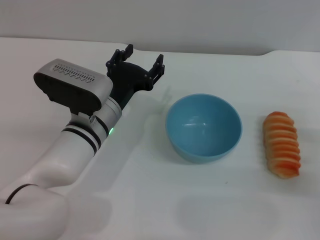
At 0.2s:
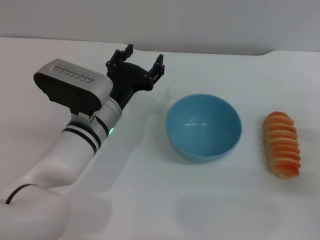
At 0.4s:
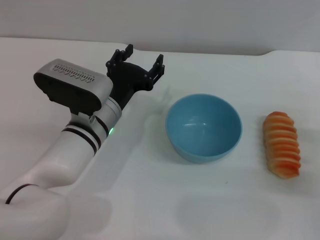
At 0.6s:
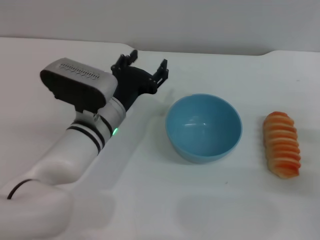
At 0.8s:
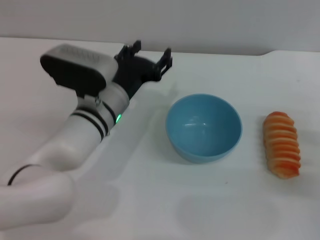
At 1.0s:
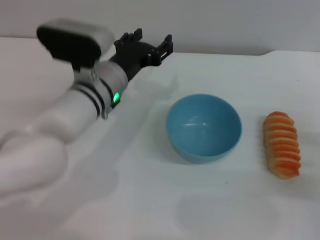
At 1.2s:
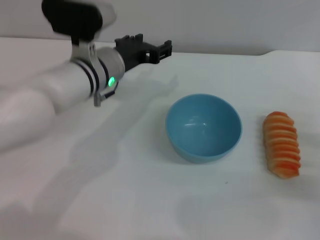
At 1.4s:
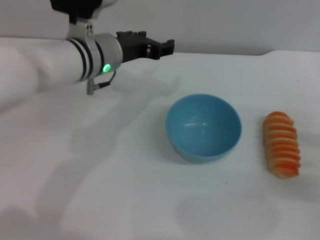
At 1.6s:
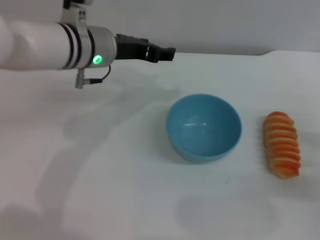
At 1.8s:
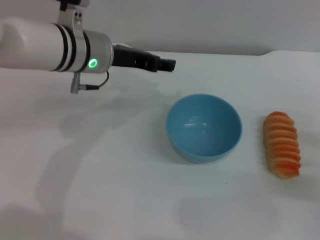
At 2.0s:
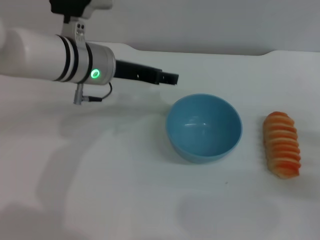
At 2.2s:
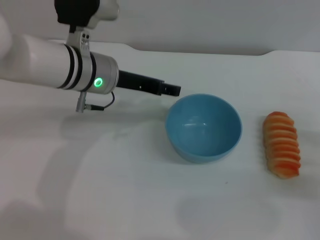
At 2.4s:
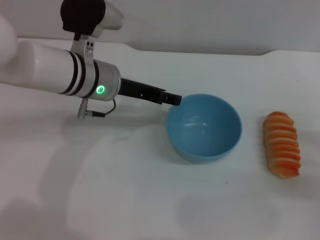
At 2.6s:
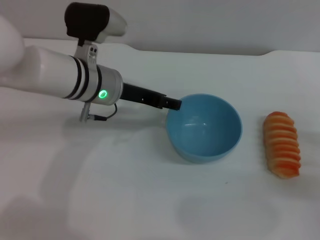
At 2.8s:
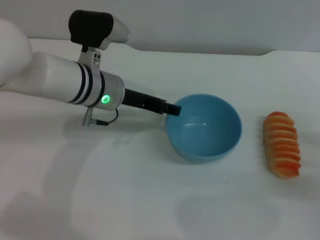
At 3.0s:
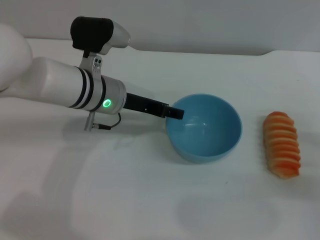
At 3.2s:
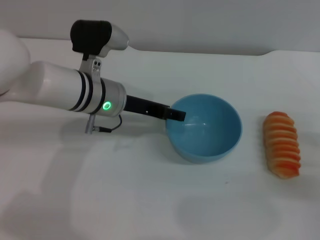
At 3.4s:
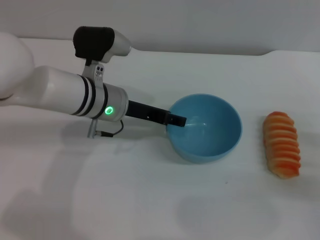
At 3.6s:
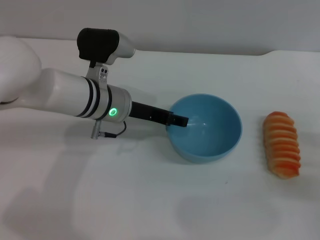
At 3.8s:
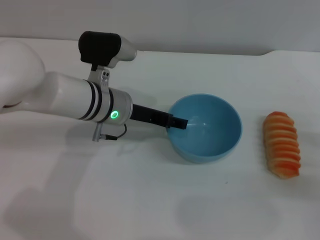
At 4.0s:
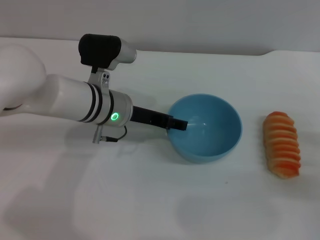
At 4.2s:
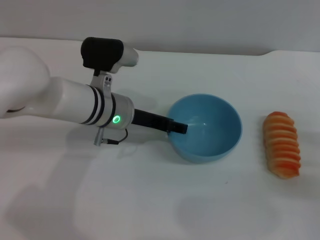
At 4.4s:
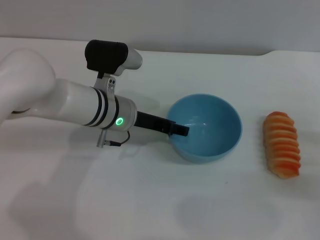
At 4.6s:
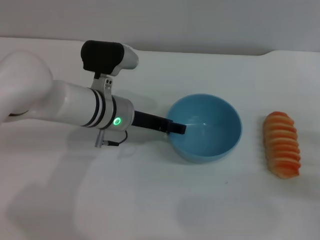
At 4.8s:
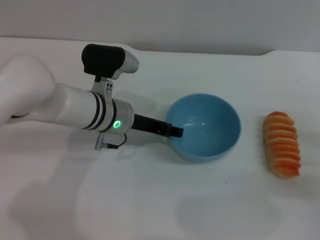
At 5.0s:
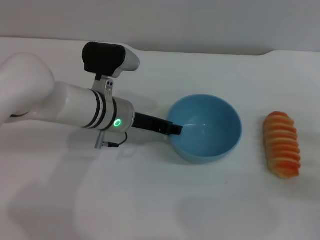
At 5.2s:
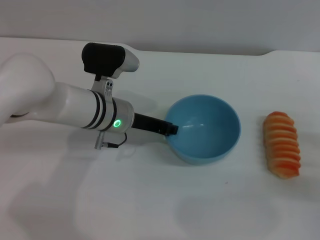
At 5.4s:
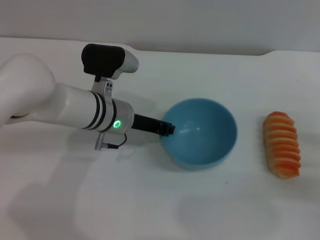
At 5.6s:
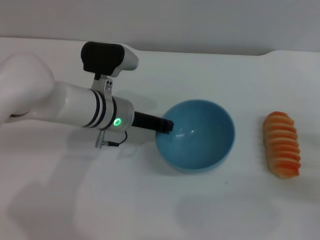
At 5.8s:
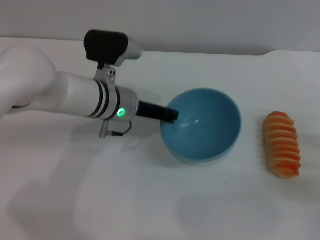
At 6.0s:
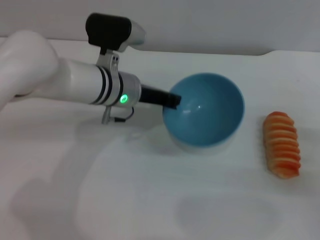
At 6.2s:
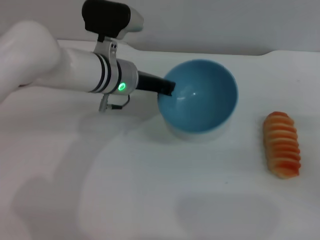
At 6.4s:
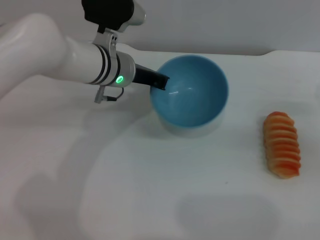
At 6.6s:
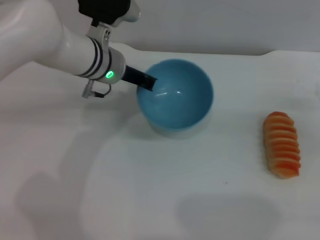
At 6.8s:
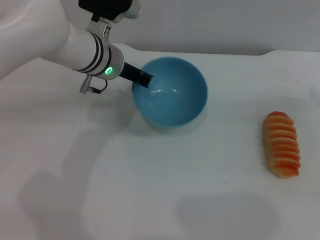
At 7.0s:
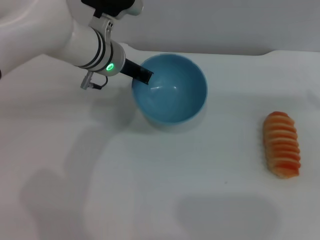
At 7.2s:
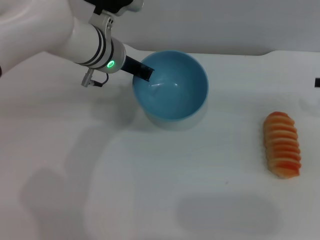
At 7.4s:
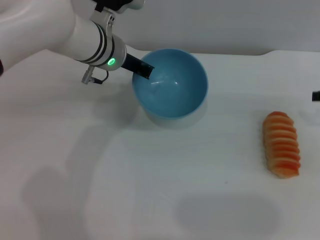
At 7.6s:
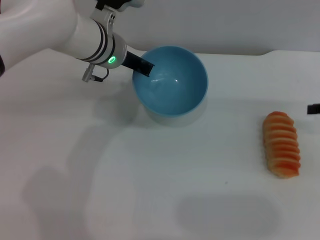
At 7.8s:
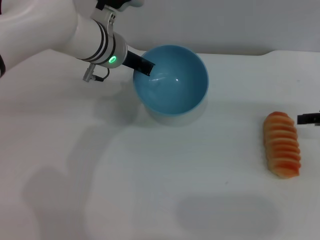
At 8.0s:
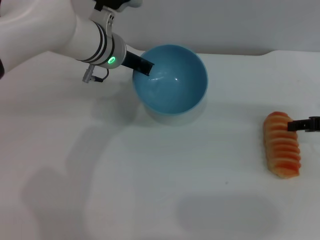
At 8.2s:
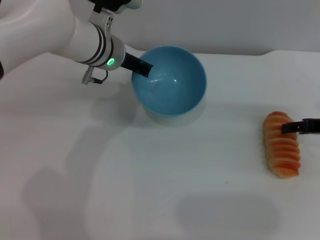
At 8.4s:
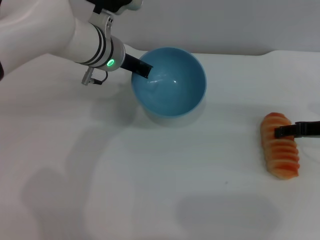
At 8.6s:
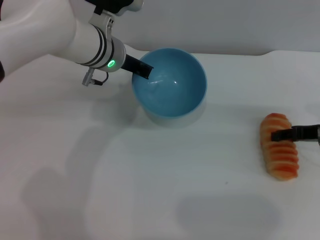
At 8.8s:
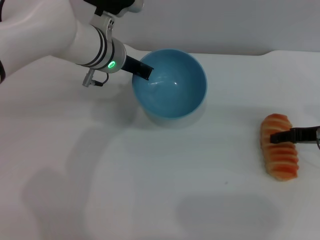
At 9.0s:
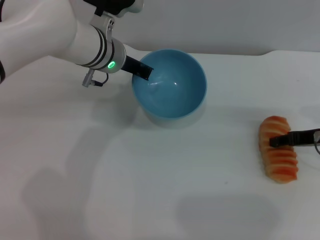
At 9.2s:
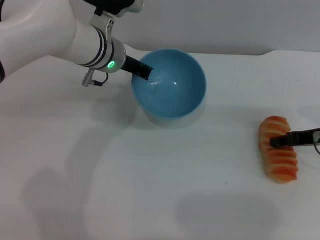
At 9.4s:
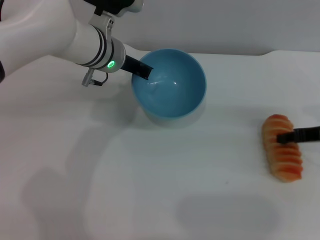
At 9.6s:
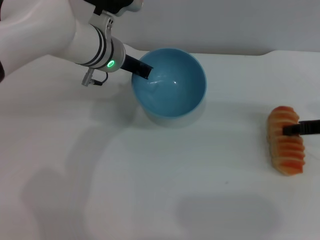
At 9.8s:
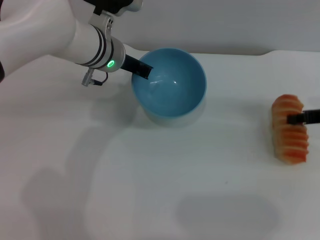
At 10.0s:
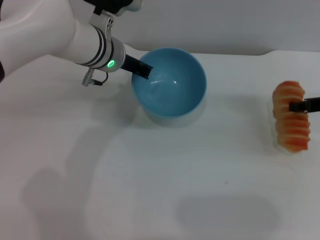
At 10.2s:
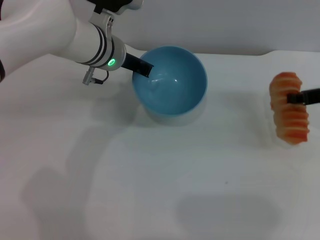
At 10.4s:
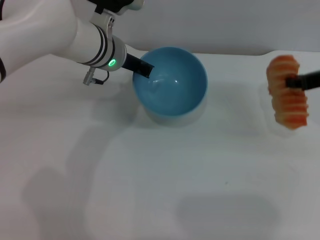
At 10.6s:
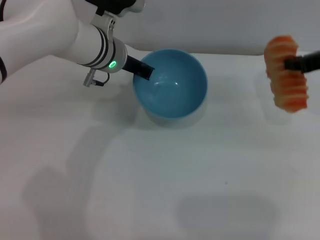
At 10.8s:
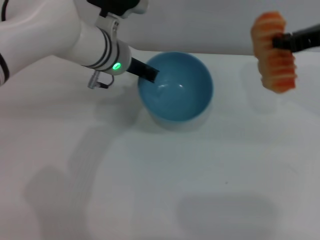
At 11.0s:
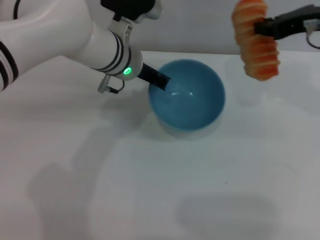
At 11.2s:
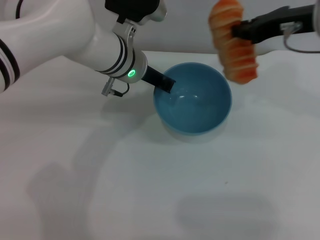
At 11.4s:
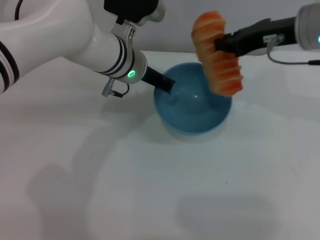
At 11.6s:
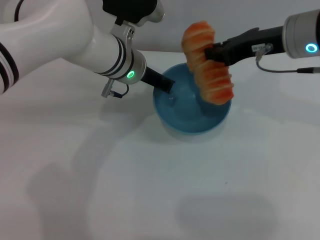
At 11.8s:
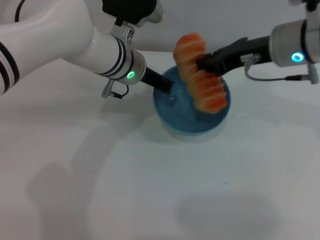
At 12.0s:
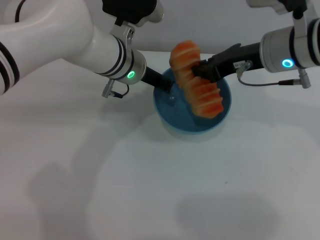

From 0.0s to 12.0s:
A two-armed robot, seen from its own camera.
Task of the whole recording: put the bread into the blue bowl and pour it out repeatedly.
Step, from 0.0s to 6.0s: Pick up the bowl with the left gripper.
Step, from 6.2s to 10.4s: Pick up the bread with the right gripper.
From 0.0s to 1.6s: The left gripper goes some 15 cm upward and forward.
From 1.6s to 3.0s: The left gripper is displaced downward by about 5 cm.
From 3.0s to 4.4s: The grippers stay close to where they were, moving slightly.
From 4.4s to 6.0s: The left gripper closes its fingers.
From 6.0s to 7.6s: The right gripper travels upward and forward by approximately 15 cm. The left gripper moves roughly 5 cm.
From 7.6s to 9.0s: The right gripper is displaced downward by some 5 cm.
From 9.0s to 10.4s: The right gripper heads upward, covering roughly 10 cm, and closes up.
From 10.4s to 12.0s: The right gripper shifts approximately 15 cm to the left.

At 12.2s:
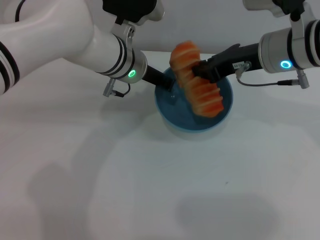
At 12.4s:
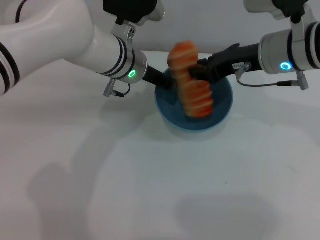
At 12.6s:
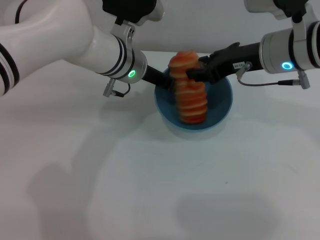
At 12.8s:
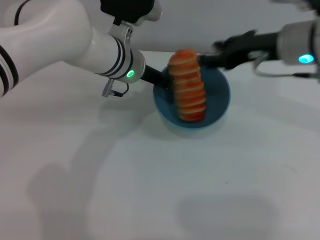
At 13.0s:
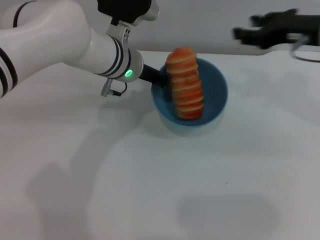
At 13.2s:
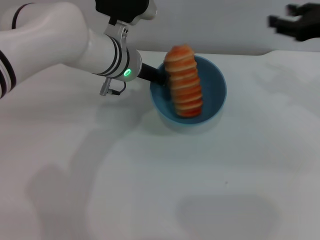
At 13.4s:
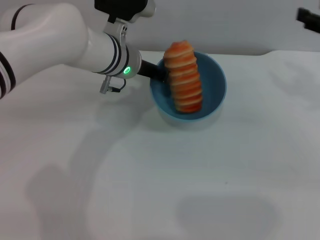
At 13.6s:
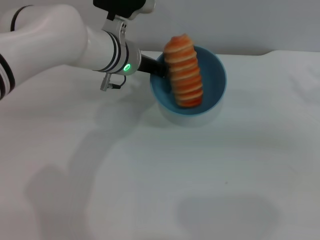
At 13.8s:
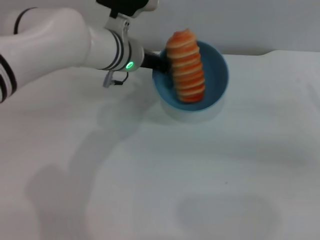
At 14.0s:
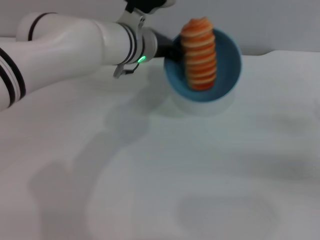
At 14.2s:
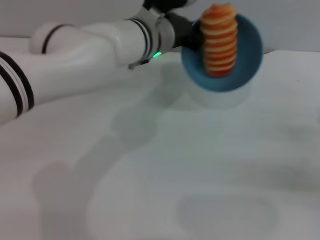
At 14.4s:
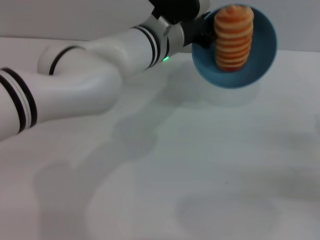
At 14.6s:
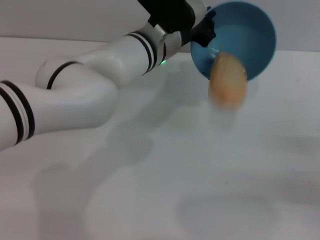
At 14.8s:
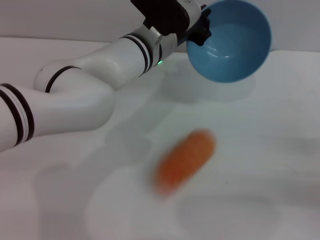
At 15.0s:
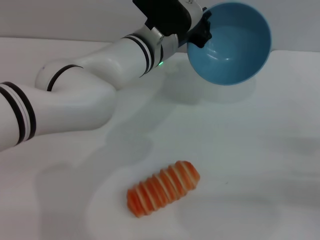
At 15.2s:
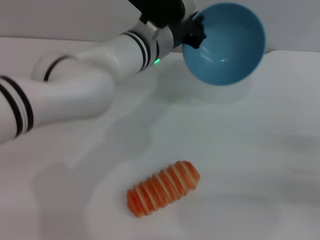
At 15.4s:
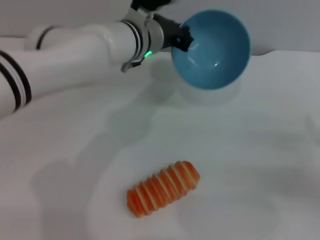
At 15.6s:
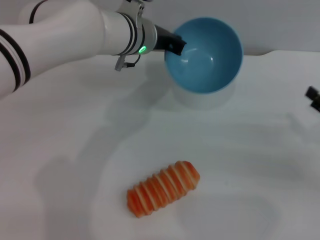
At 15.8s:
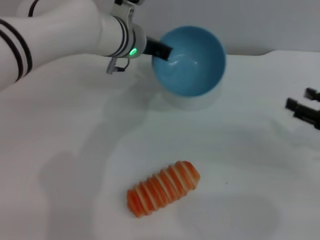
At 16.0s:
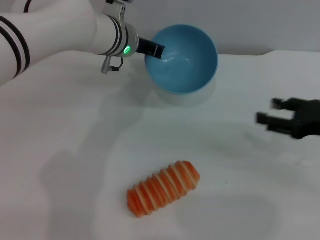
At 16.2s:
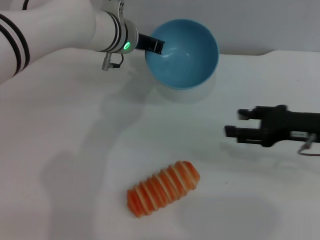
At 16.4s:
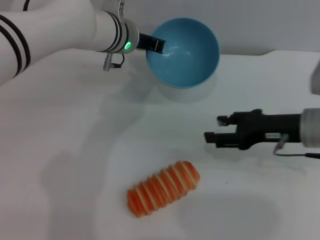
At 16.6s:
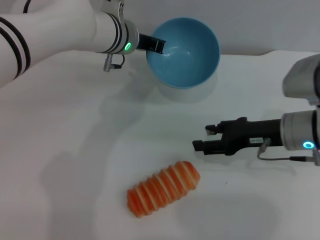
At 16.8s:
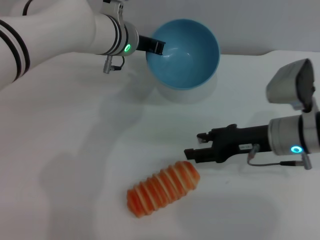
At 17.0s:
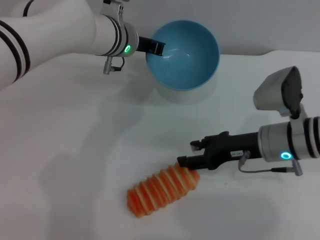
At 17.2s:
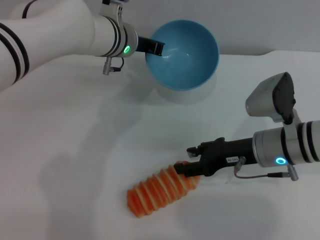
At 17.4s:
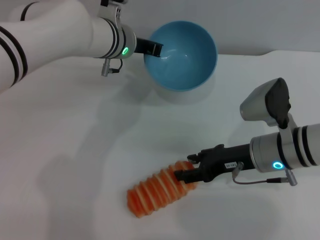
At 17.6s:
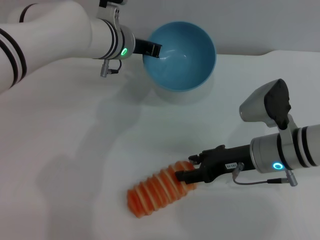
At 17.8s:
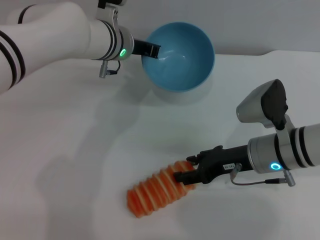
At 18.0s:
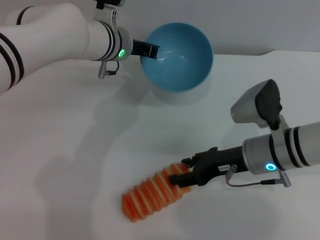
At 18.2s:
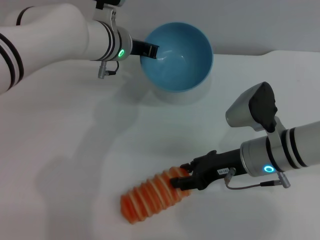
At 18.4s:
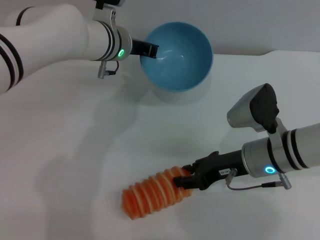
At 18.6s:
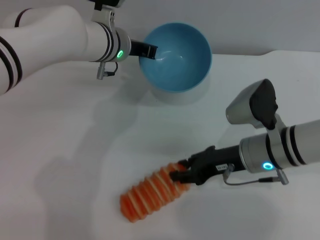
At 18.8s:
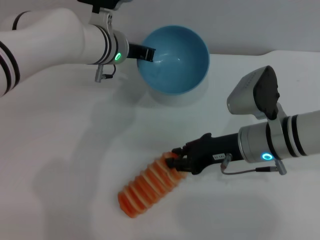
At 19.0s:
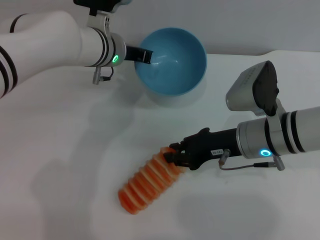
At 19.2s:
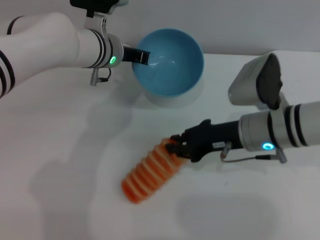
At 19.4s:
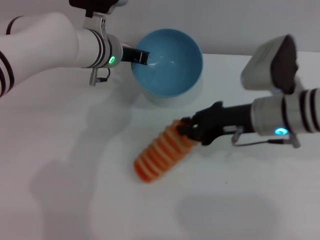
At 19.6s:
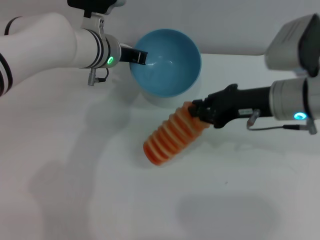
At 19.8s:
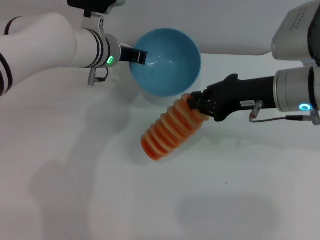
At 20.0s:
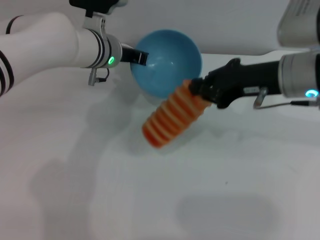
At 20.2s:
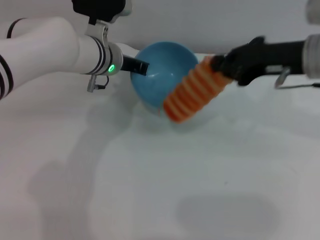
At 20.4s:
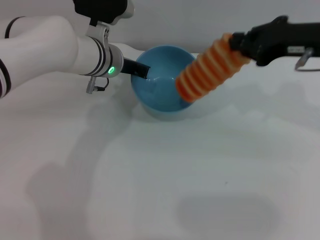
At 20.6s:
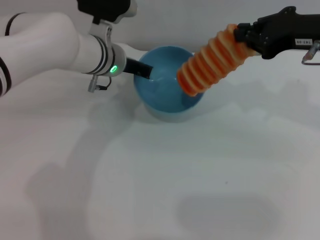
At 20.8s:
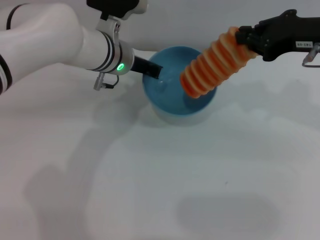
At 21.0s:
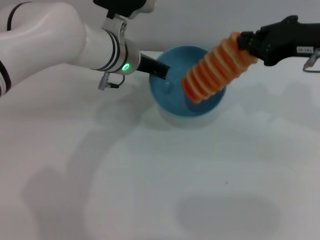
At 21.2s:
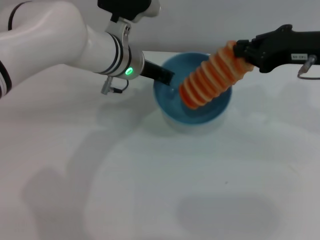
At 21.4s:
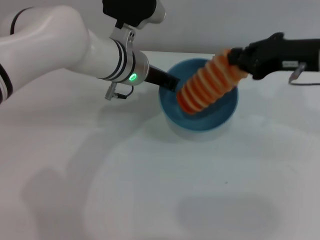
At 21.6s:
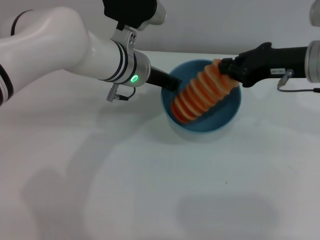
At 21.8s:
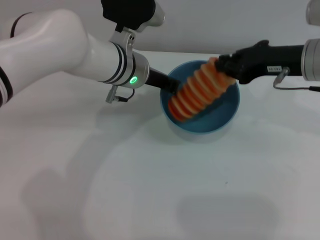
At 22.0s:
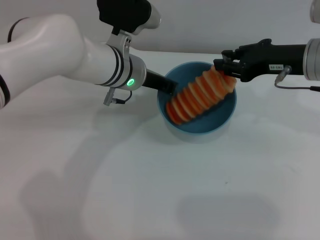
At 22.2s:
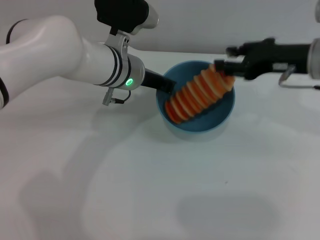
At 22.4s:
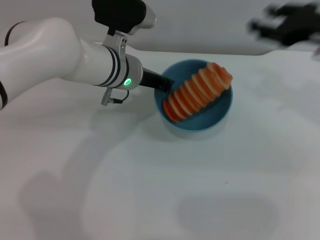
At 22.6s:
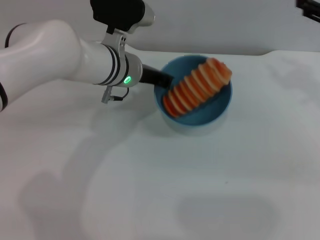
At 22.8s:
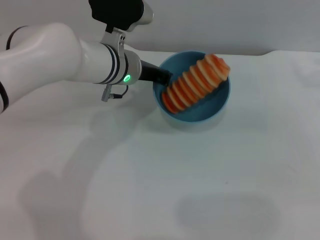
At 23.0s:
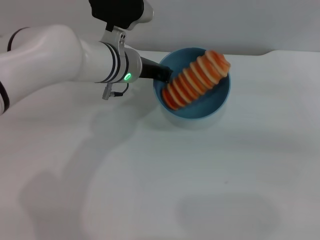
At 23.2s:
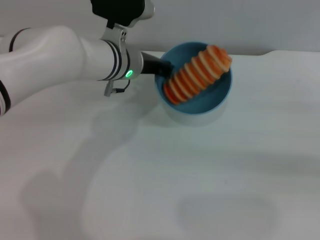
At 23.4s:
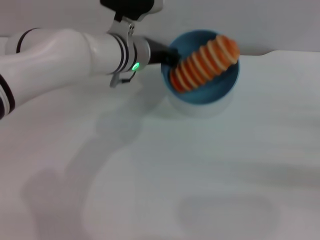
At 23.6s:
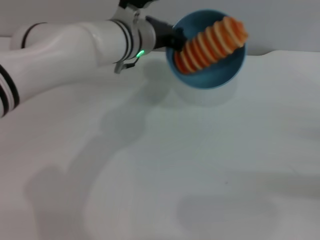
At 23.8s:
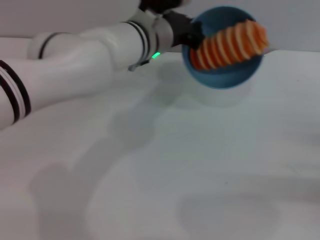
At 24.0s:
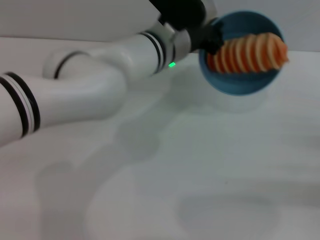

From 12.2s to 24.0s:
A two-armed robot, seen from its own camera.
Task of the whole recording: put the bread into the blue bowl and pour it out repeatedly.
Step, from 13.0s to 15.2s: Pour the bread out of the bowl.
Step, from 15.6s to 20.2s: Pick up the bread with the right gripper.
Step, from 20.4s to 22.2s: Place the bread into the bowl.
From 12.2s to 13.6s: The right gripper shifts roughly 20 cm to the right, and opens its fingers.
From 13.6s to 15.2s: The right gripper goes approximately 15 cm downward and backward.
From 15.2s to 16.6s: The right gripper moves to the left and forward, about 20 cm. Meanwhile the left gripper ends up approximately 5 cm from where it was.
From 16.6s to 18.2s: The right gripper heads to the left, covering some 5 cm.
From 18.2s to 19.6s: The right gripper is displaced upward by approximately 10 cm, and closes.
From 19.6s to 21.0s: The right gripper moves upward and to the right, about 10 cm.
From 21.0s to 22.6s: The right gripper shifts roughly 5 cm to the right, and opens its fingers.
From 22.6s to 24.0s: The right gripper goes some 25 cm downward, backward and to the right. Meanwhile the left gripper travels to the right by about 5 cm.
